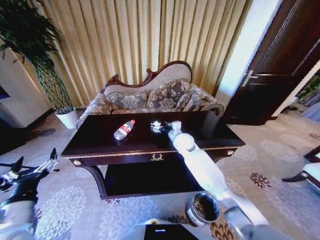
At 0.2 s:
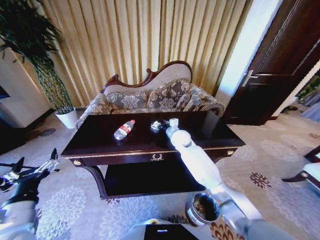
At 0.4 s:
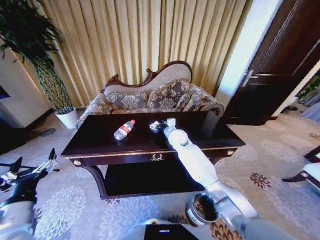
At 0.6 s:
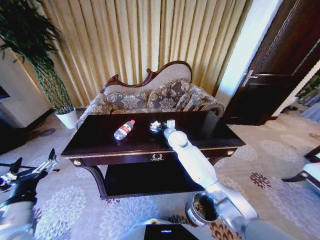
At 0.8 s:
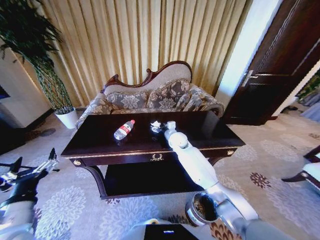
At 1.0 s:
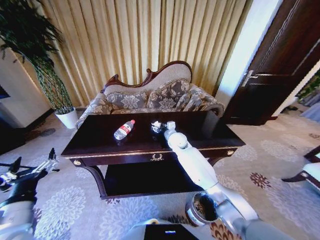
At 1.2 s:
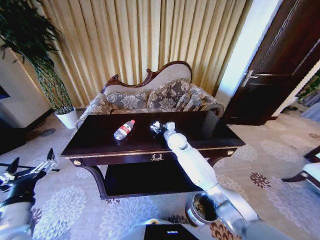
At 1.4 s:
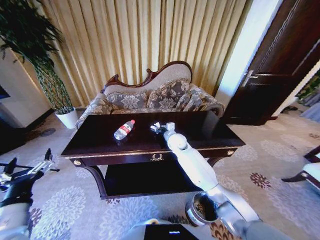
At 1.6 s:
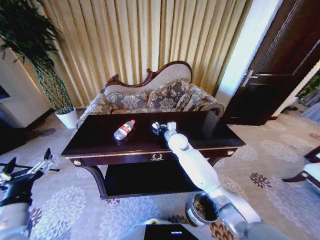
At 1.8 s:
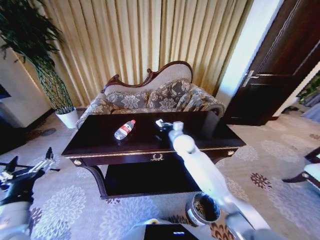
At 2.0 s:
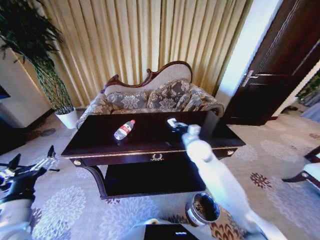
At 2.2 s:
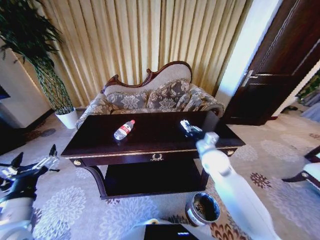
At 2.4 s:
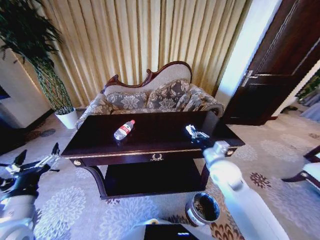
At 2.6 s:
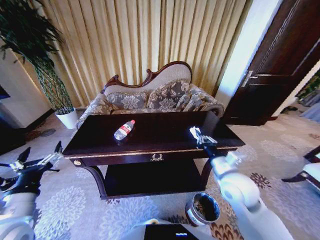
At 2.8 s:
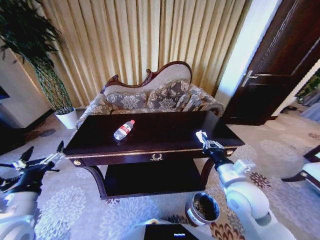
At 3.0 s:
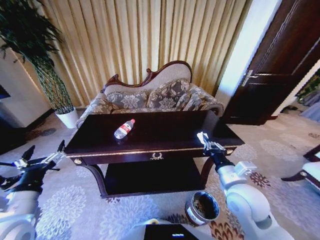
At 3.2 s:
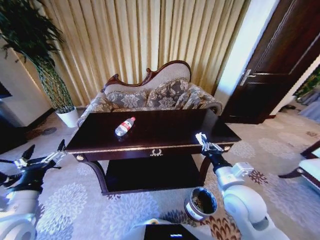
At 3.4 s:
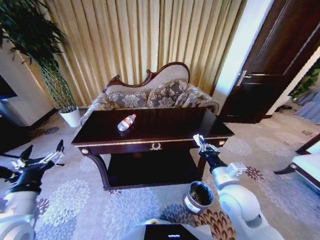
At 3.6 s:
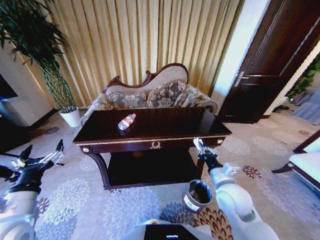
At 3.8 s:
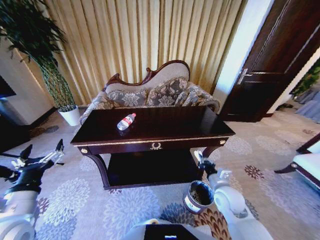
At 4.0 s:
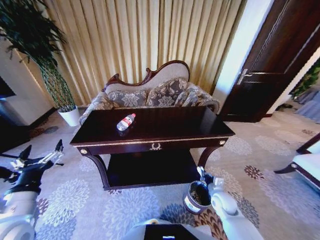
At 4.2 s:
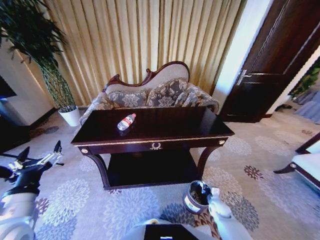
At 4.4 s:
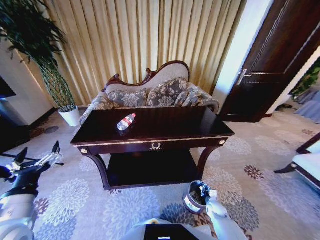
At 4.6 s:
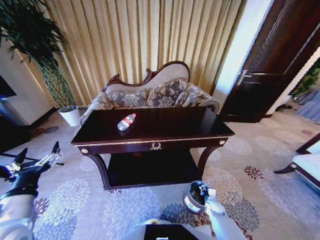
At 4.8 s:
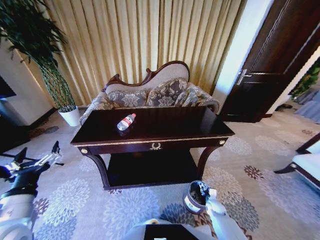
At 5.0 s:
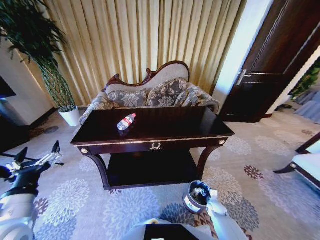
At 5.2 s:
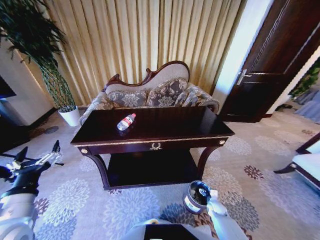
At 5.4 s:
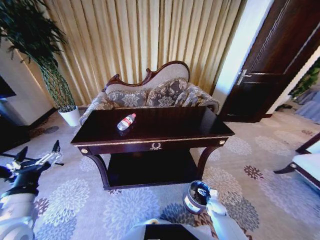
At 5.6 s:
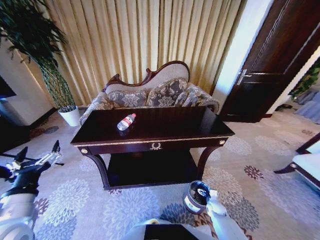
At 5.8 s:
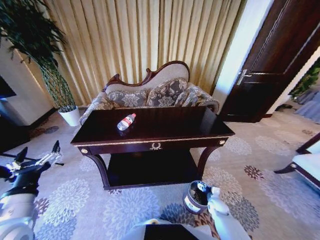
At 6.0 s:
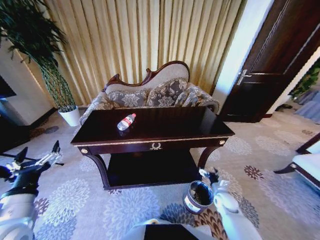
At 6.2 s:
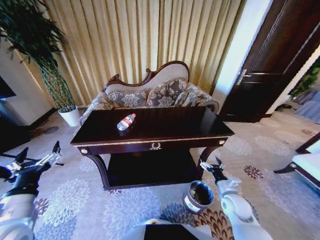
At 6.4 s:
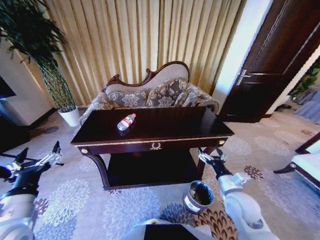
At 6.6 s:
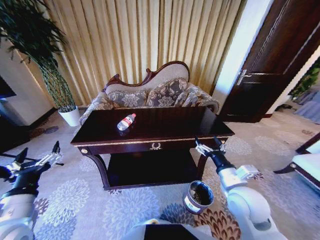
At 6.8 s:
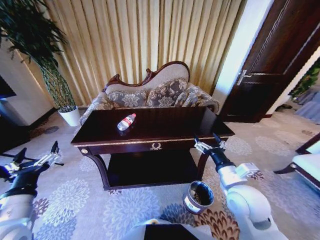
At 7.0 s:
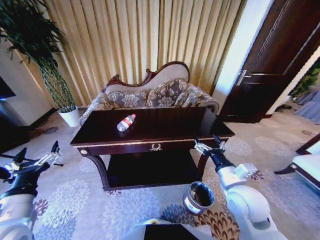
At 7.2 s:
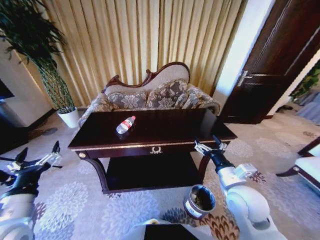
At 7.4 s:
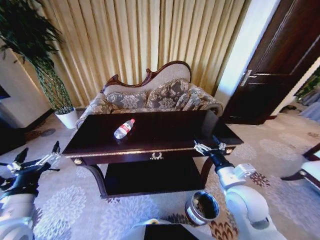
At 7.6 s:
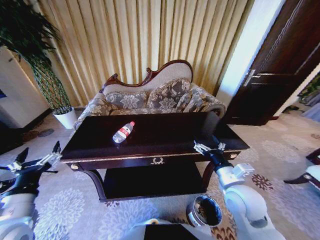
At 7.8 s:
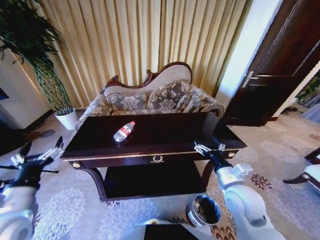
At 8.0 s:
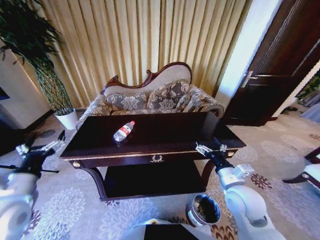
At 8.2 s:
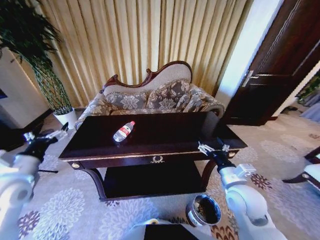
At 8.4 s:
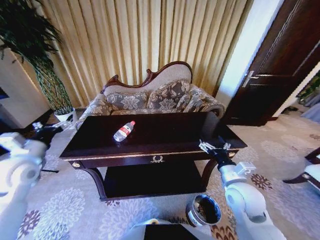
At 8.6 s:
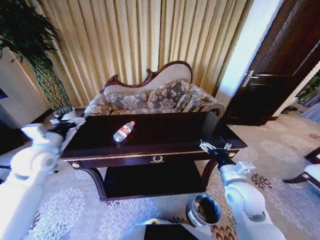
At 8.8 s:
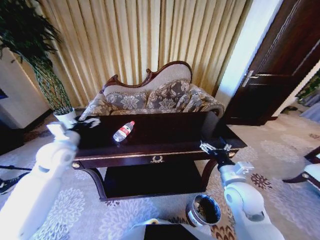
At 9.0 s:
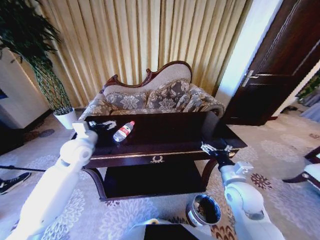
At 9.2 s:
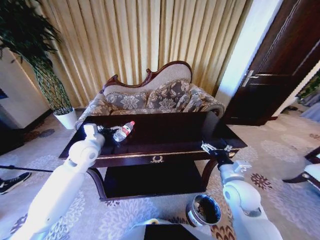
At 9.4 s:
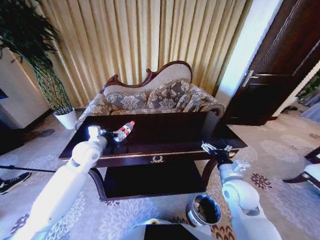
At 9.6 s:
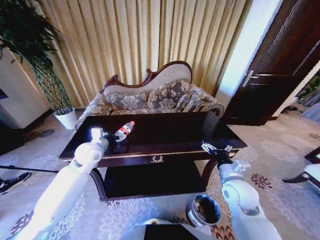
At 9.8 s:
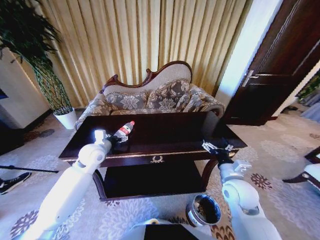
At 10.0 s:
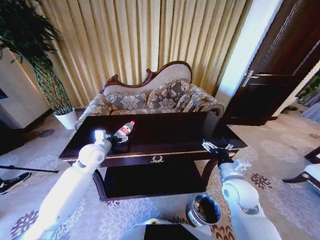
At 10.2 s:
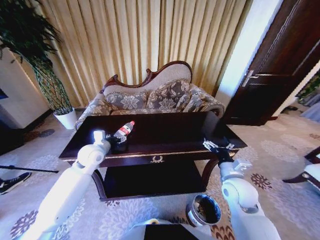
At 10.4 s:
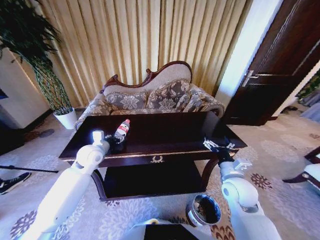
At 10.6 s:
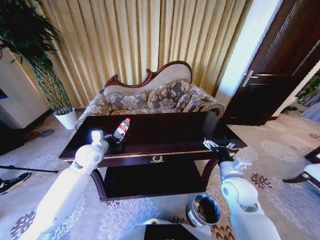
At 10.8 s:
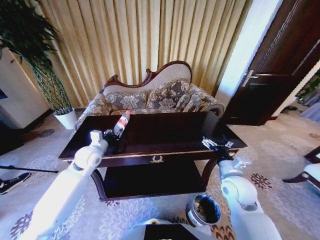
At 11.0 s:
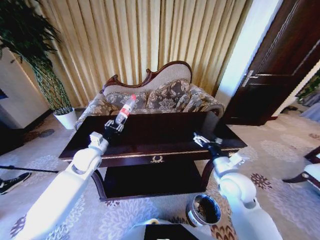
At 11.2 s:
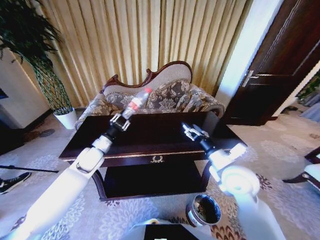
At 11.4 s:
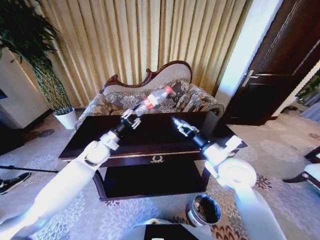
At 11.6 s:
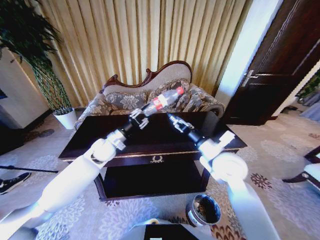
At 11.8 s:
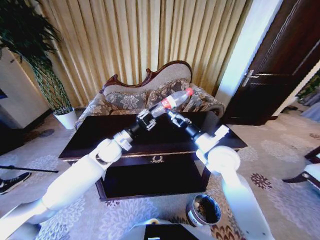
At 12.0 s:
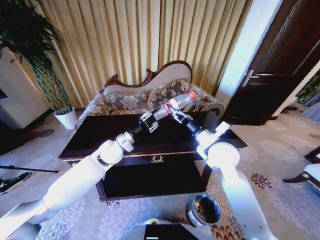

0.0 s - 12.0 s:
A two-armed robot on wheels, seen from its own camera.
Task of the whole recording: Move to the front of the table and place the trash on the table into the trash bin.
0.0 s - 1.6 s: The right gripper closes its fingers.
1.6 s - 3.0 s: The right gripper travels backward and to the right by about 30 cm.
3.0 s - 4.4 s: The right gripper travels downward by roughly 40 cm.
4.4 s - 6.0 s: The right gripper heads upward, covering approximately 10 cm, and opens.
6.0 s - 7.6 s: The right gripper moves upward, approximately 25 cm.
7.6 s - 9.0 s: The left gripper moves forward, approximately 25 cm.
9.0 s - 10.4 s: The left gripper heads downward, covering some 5 cm, and closes its fingers.
10.4 s - 12.0 s: The right gripper moves upward, forward and to the left, approximately 15 cm. Meanwhile the left gripper heads to the right, covering about 10 cm, and closes its fingers.

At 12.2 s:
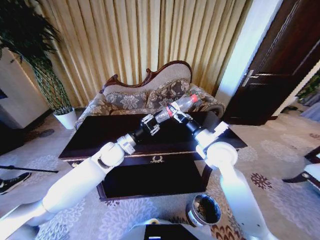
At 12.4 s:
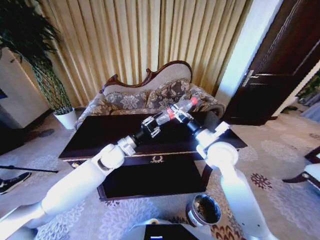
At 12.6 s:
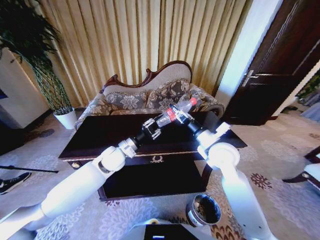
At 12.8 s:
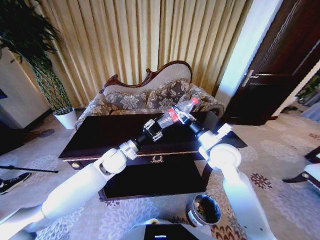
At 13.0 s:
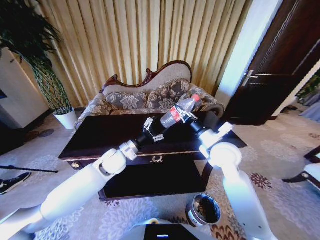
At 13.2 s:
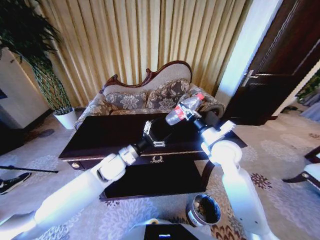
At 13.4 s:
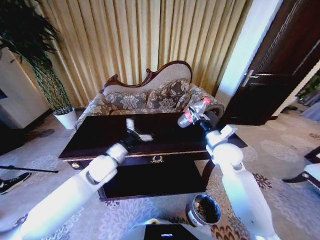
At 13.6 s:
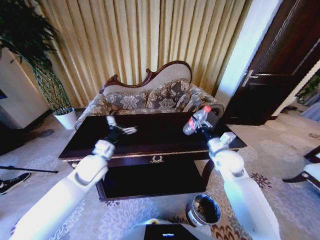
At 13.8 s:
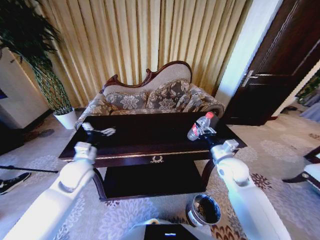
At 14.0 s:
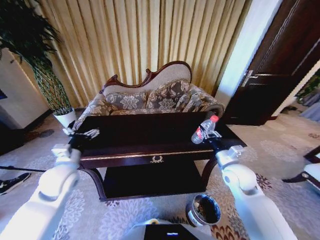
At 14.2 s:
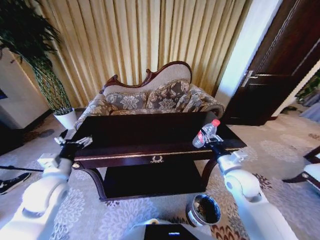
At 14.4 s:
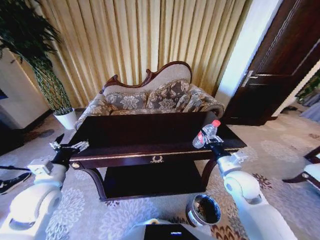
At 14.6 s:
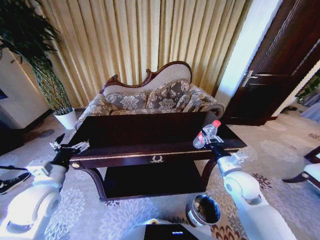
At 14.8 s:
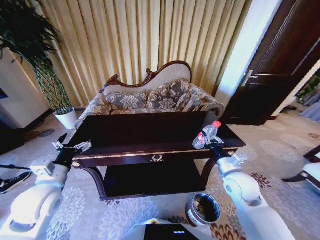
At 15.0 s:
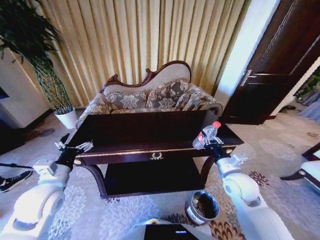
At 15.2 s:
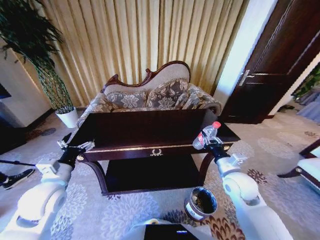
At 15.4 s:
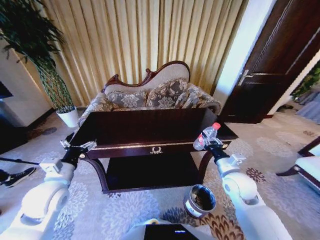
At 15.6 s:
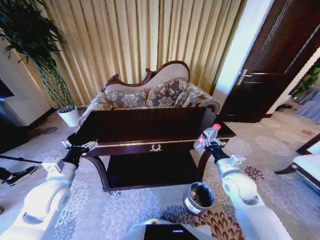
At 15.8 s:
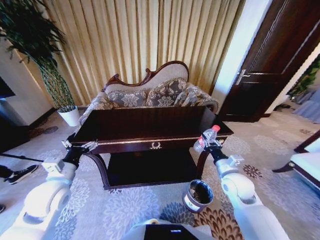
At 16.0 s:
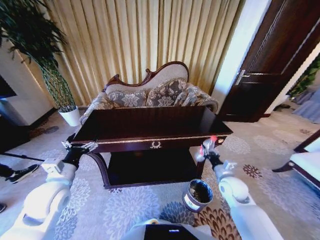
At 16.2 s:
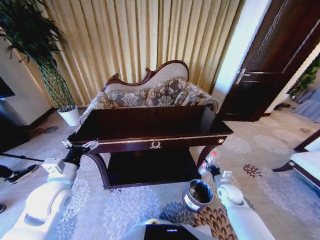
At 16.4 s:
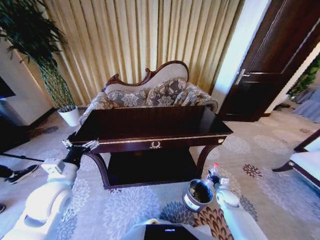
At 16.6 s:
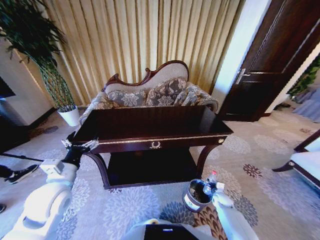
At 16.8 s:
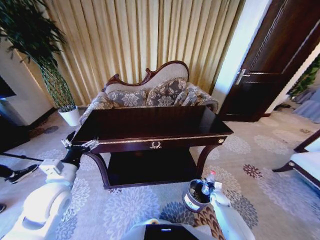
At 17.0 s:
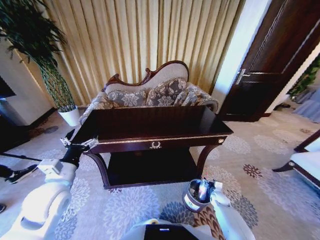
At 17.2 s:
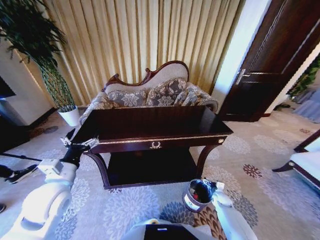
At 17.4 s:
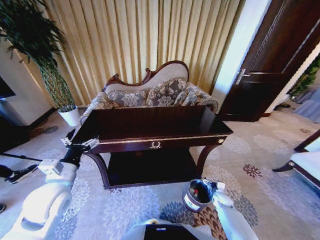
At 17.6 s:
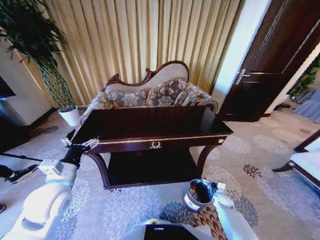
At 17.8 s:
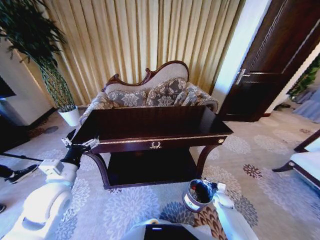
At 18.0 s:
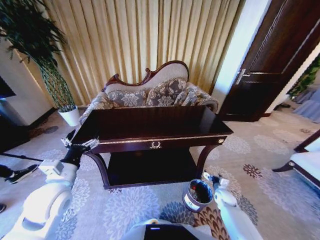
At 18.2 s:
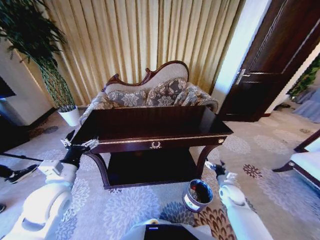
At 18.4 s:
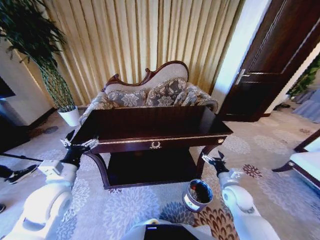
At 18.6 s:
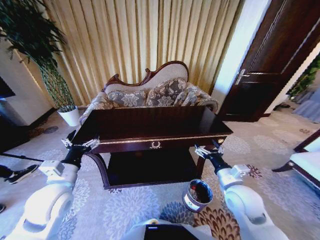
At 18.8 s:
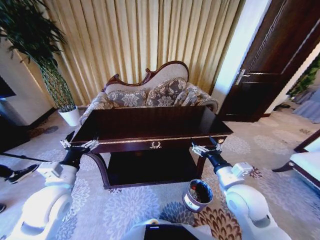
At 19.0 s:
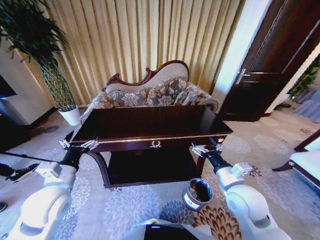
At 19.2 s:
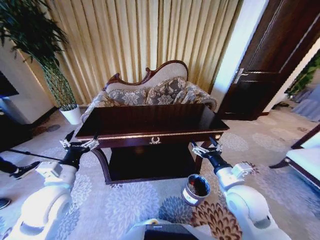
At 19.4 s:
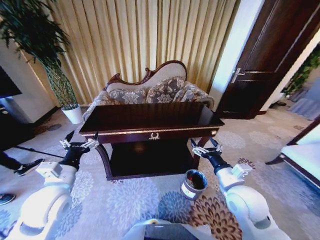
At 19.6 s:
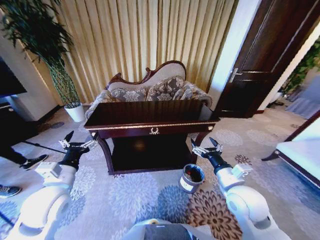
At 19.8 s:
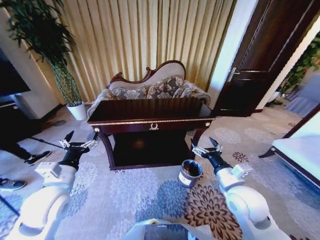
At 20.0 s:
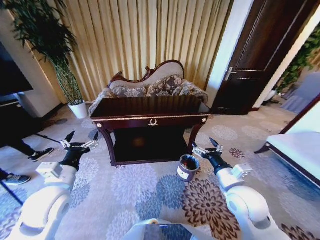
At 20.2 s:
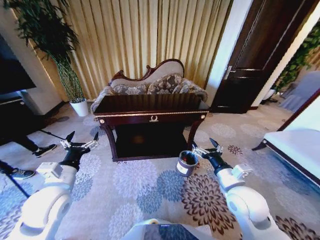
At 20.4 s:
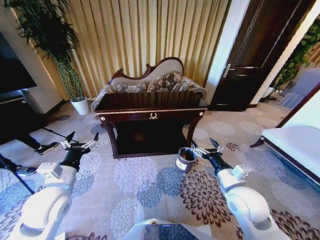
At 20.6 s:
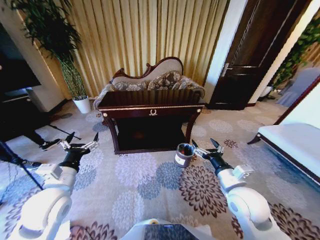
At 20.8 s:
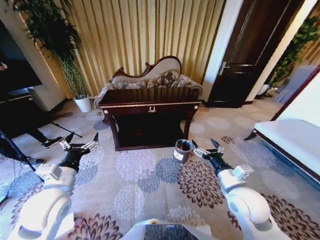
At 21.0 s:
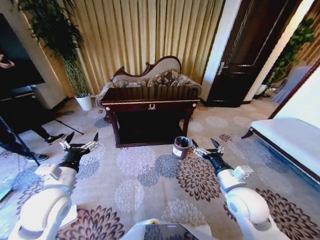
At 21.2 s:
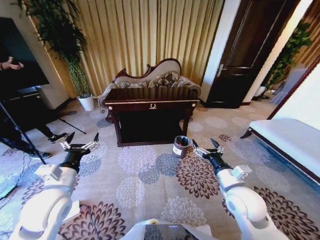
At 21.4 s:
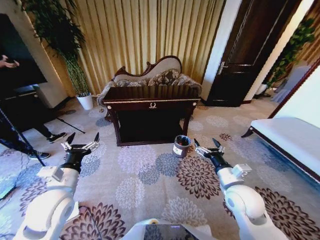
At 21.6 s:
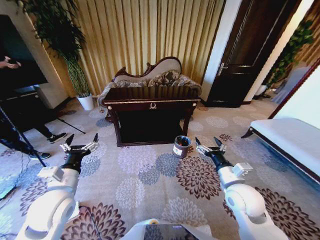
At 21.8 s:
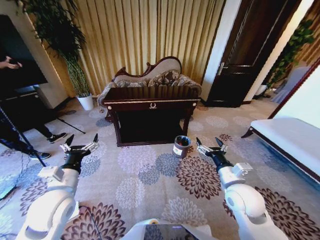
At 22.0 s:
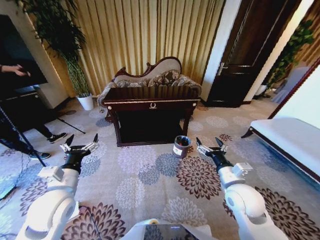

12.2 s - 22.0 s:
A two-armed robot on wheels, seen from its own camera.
Task of the whole recording: Move to the front of the table and place the trash on the table into the trash bin.
12.2 s - 13.6 s: The right gripper is displaced downward and to the right by roughly 10 cm, and closes up; the left gripper heads to the left and backward, covering roughly 10 cm, and opens its fingers.
13.6 s - 15.0 s: The right gripper is displaced backward by approximately 10 cm, while the left gripper shifts some 15 cm backward and to the left.
15.0 s - 16.4 s: The right gripper heads downward, covering some 30 cm.
16.4 s - 17.8 s: The right gripper is displaced downward by roughly 5 cm, and opens.
17.8 s - 19.2 s: The right gripper heads upward, covering some 35 cm.
